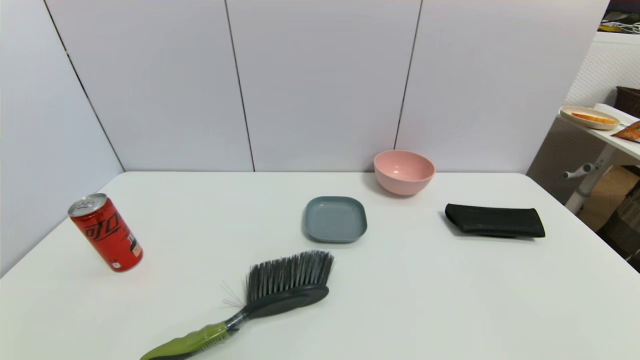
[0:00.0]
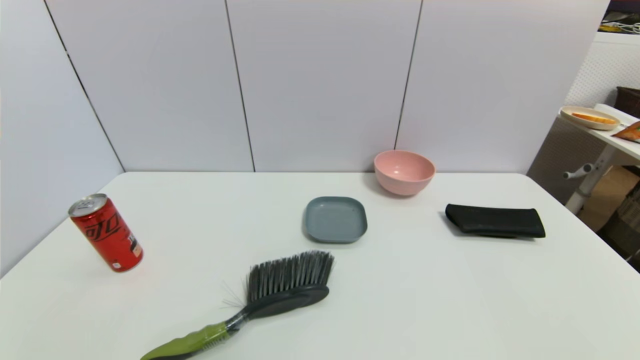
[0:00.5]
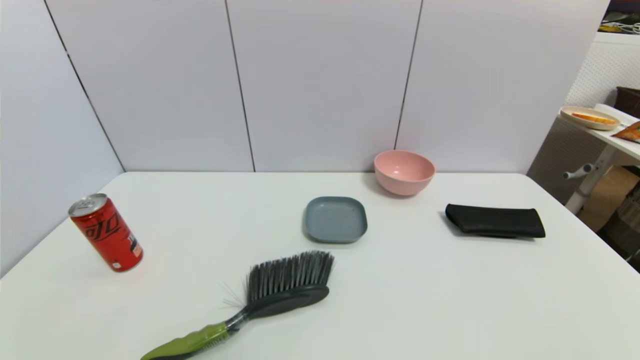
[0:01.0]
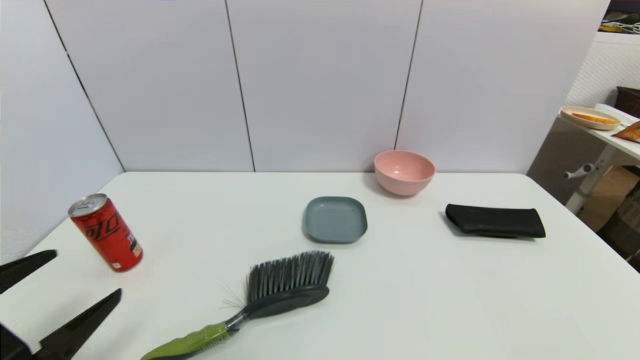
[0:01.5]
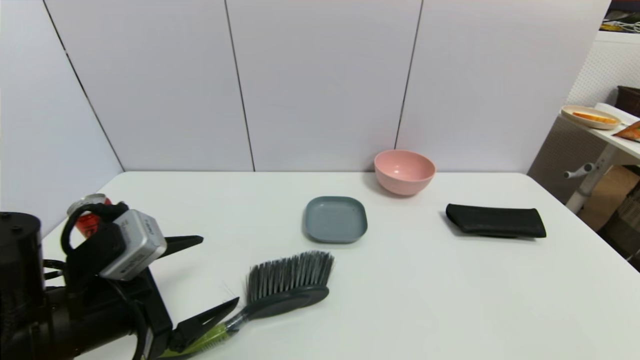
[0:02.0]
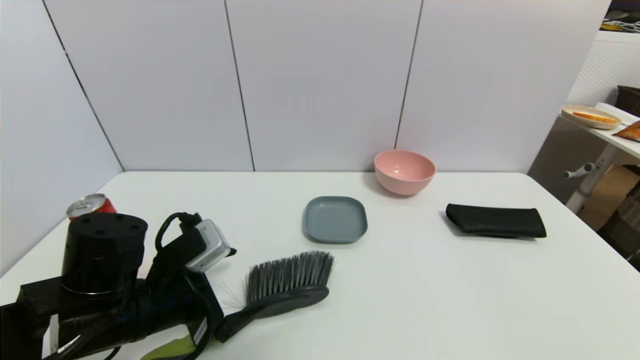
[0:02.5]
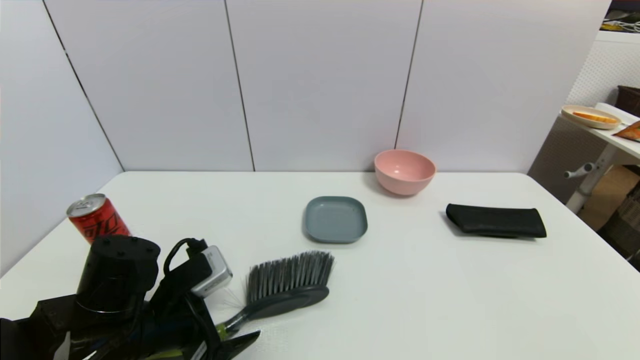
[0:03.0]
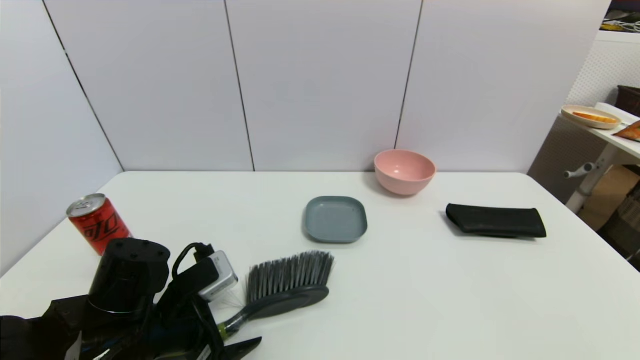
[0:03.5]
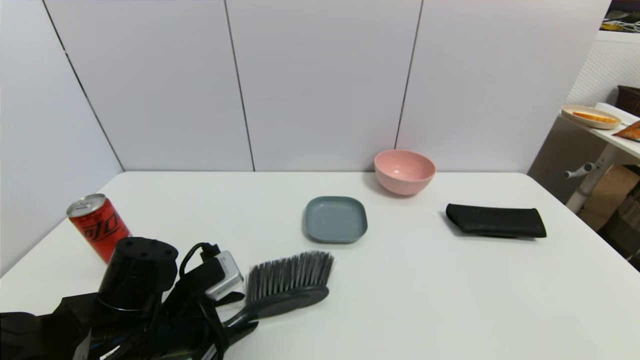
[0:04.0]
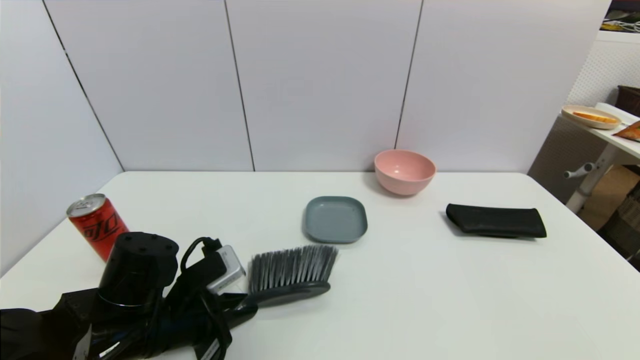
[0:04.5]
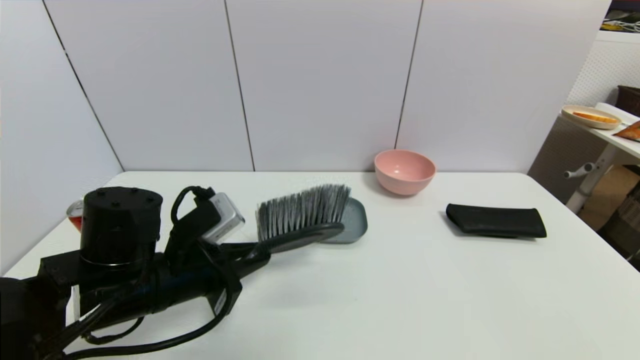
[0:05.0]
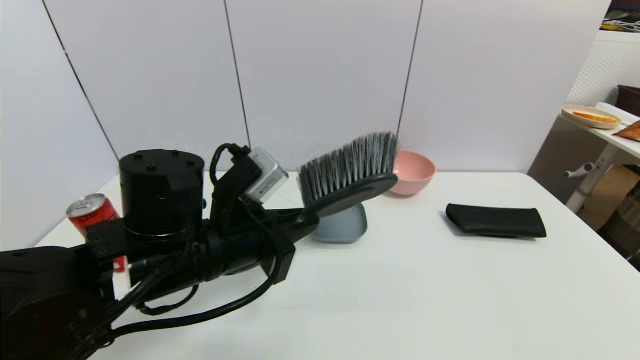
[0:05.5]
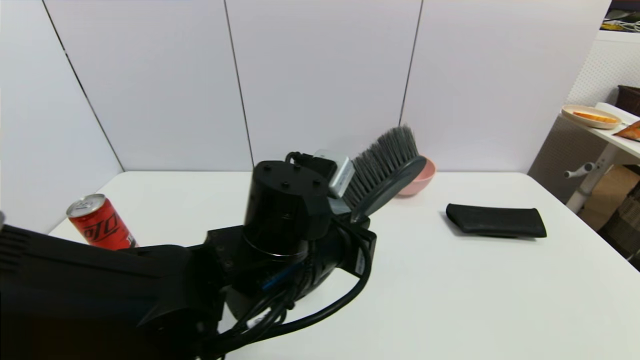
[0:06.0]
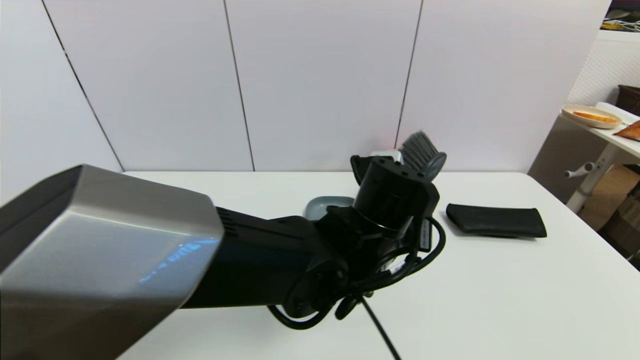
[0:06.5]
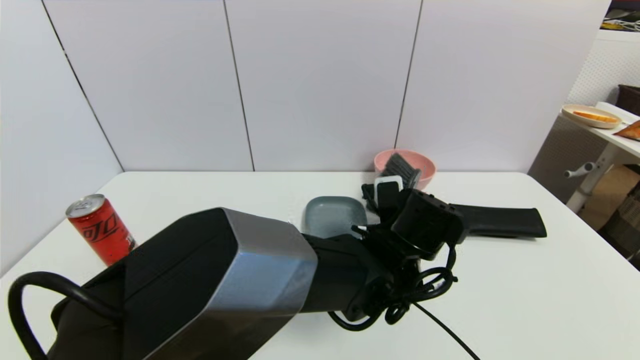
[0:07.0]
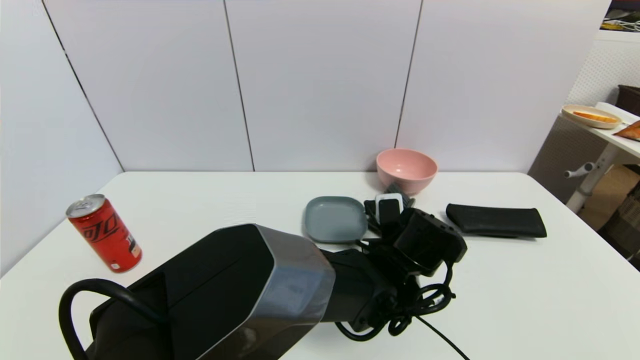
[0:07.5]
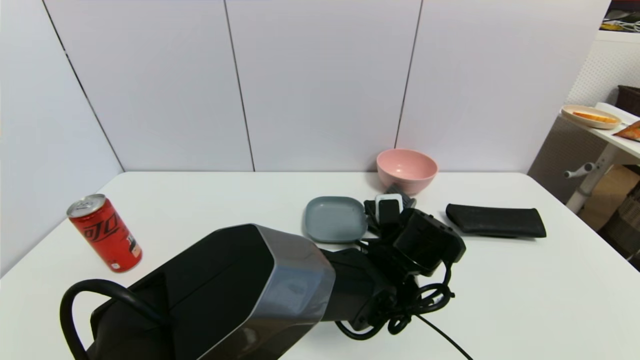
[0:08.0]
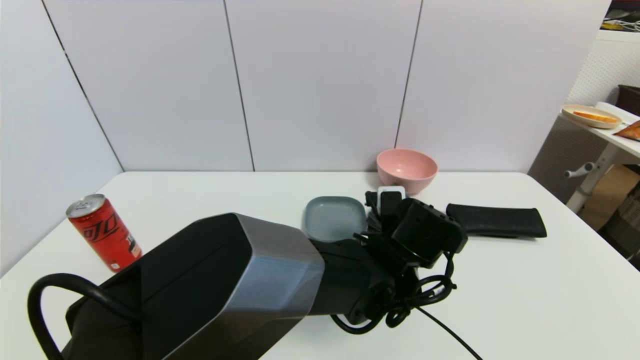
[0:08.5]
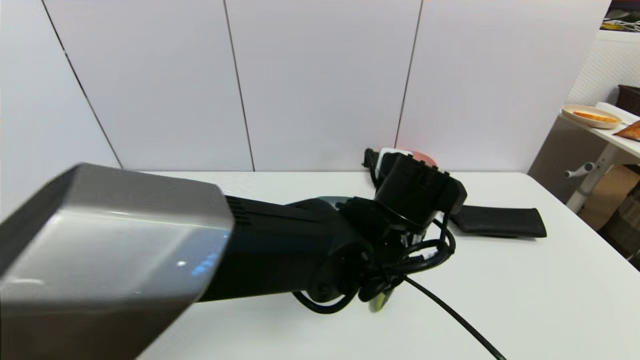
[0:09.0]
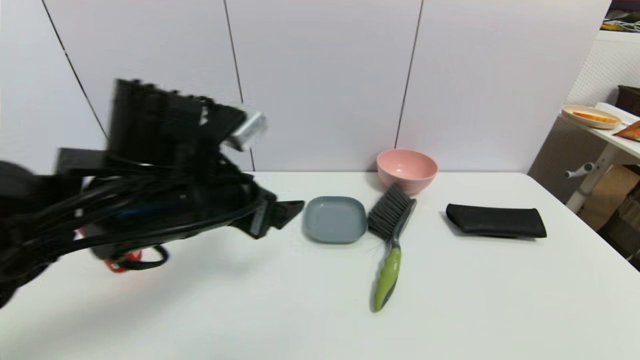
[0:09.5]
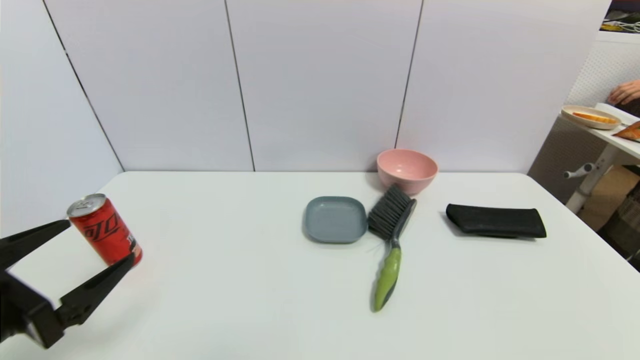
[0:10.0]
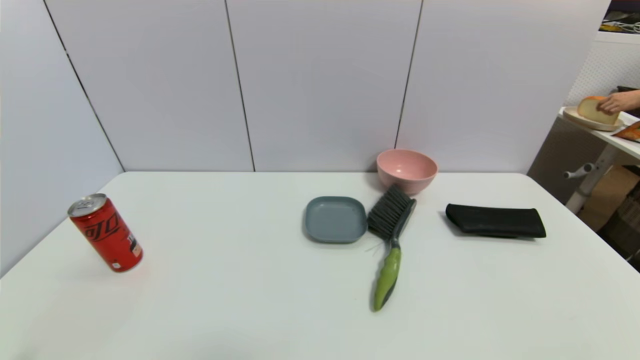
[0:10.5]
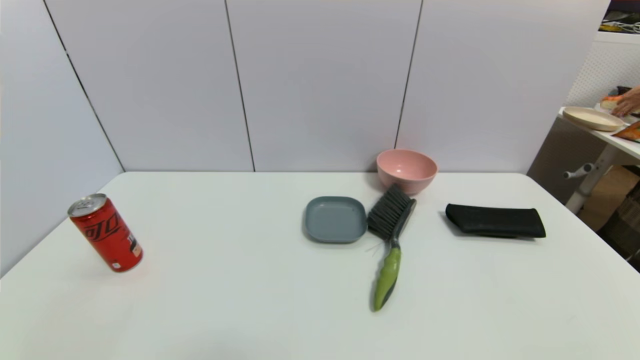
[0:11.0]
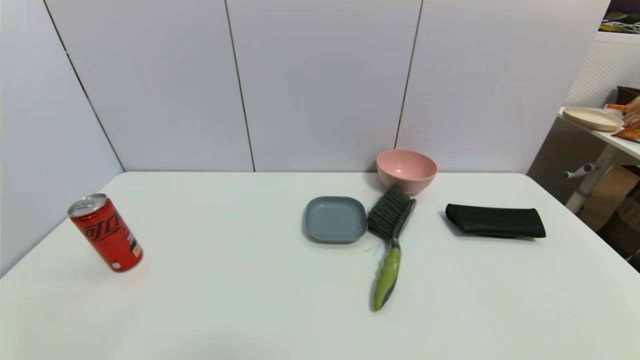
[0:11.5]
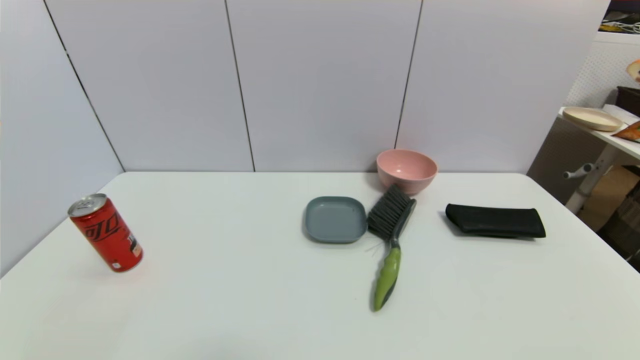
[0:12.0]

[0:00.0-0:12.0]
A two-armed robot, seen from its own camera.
Task of the whole recording: put the brush in the designated position.
Step, 0:01.5 to 0:04.0: Grasp the brush with left gripper.
Step, 0:04.5 to 0:08.0: Place the brush on the table with left gripper.
0:00.0 to 0:02.0: The left gripper is displaced forward, upward and to the right by roughly 20 cm.
0:02.0 to 0:04.0: The left gripper heads downward, covering some 10 cm, and closes.
0:04.0 to 0:06.0: The left gripper goes about 20 cm to the right and upward, and closes its fingers.
0:06.0 to 0:08.0: The left gripper moves to the right, downward and forward, roughly 20 cm.
0:08.0 to 0:10.0: The left gripper is displaced to the left and backward by roughly 40 cm, and opens.
0:10.0 to 0:12.0: The left gripper goes about 15 cm downward and backward.

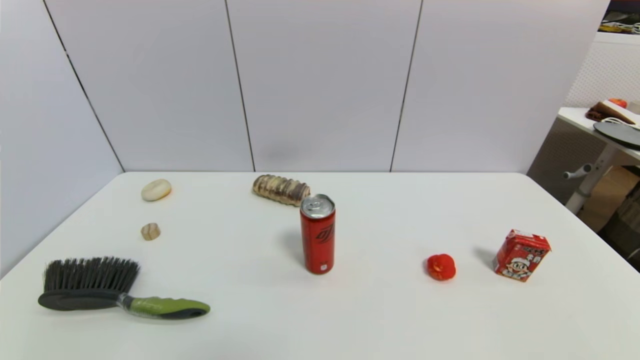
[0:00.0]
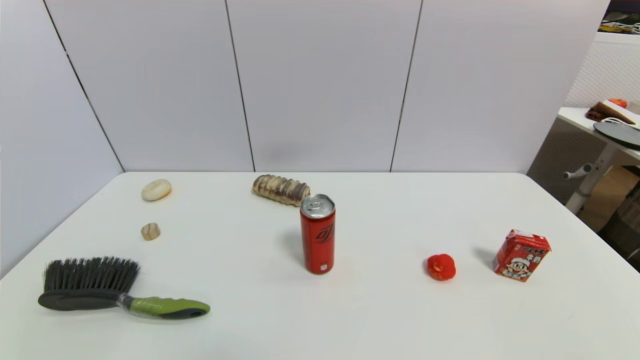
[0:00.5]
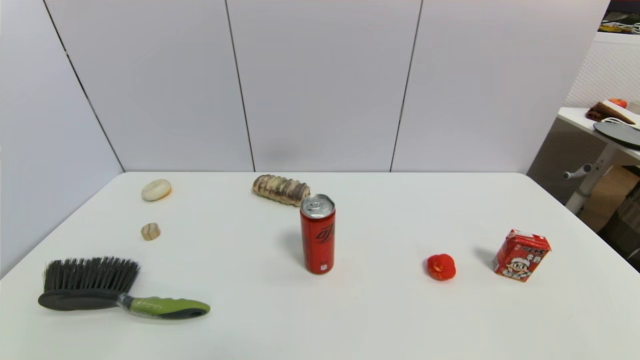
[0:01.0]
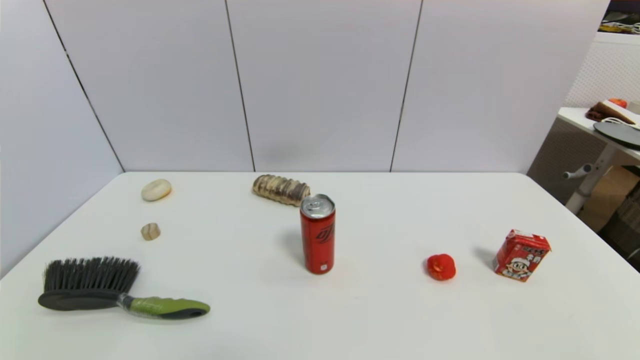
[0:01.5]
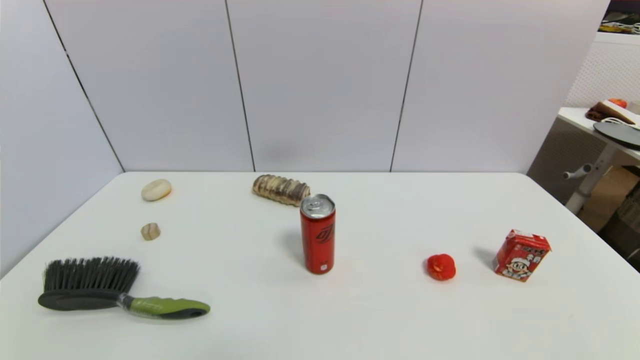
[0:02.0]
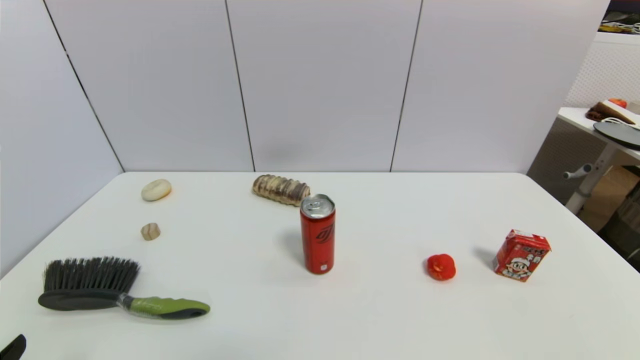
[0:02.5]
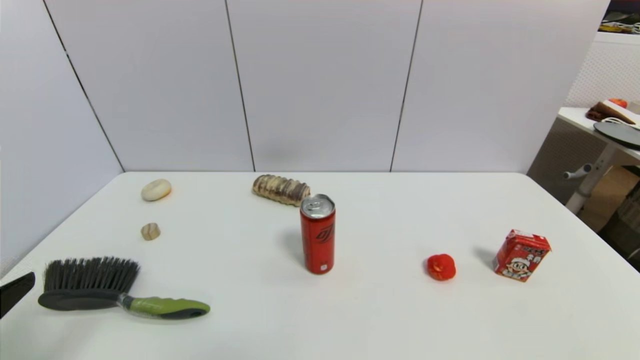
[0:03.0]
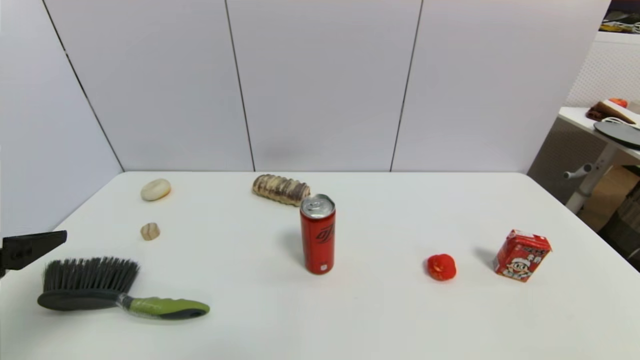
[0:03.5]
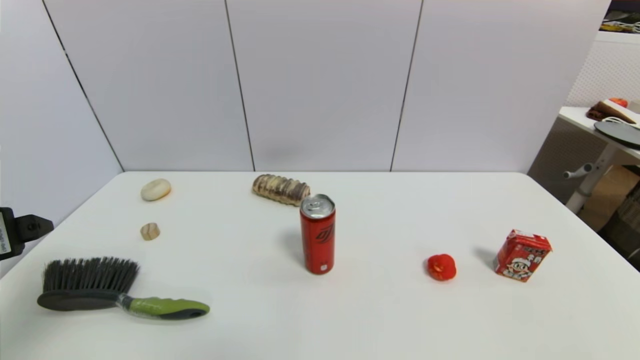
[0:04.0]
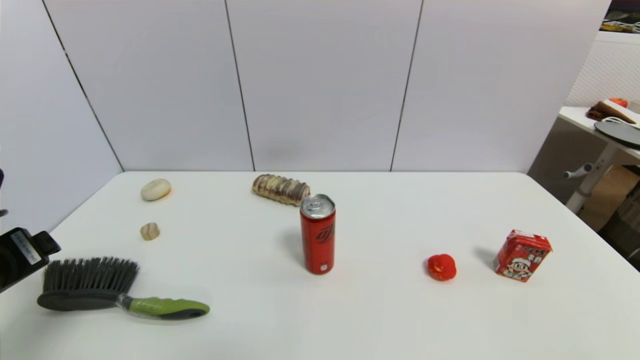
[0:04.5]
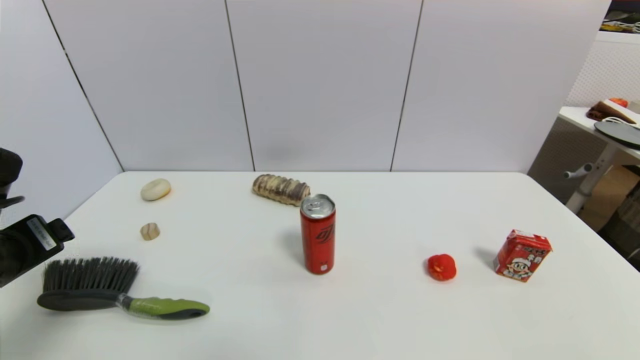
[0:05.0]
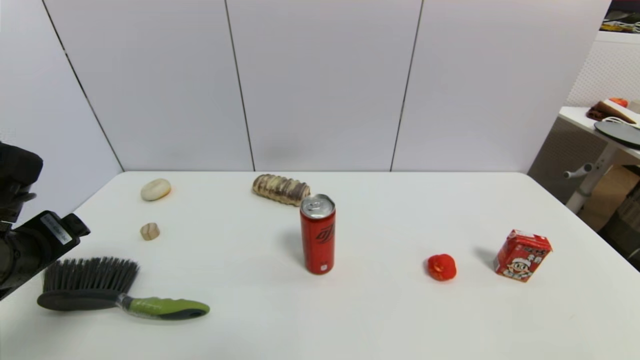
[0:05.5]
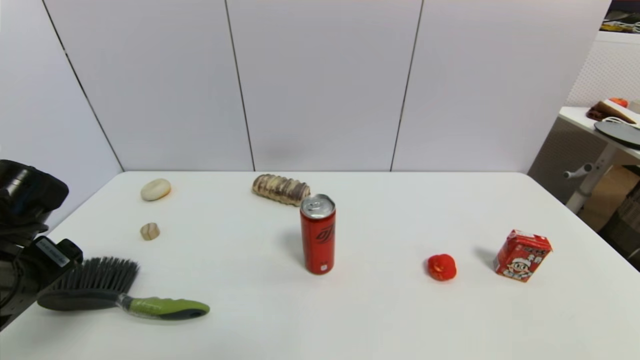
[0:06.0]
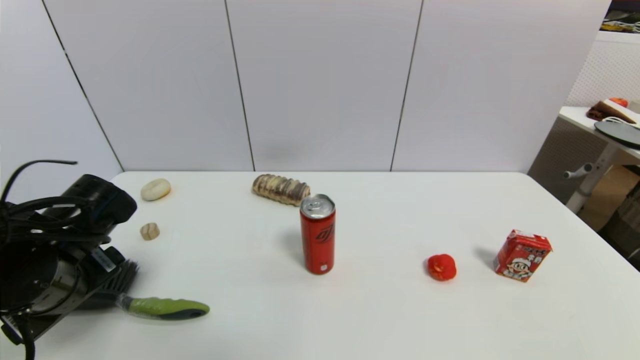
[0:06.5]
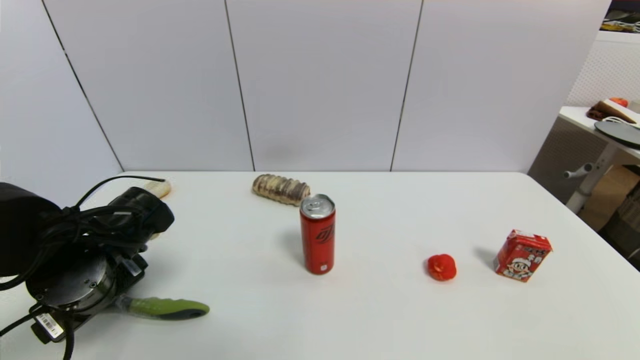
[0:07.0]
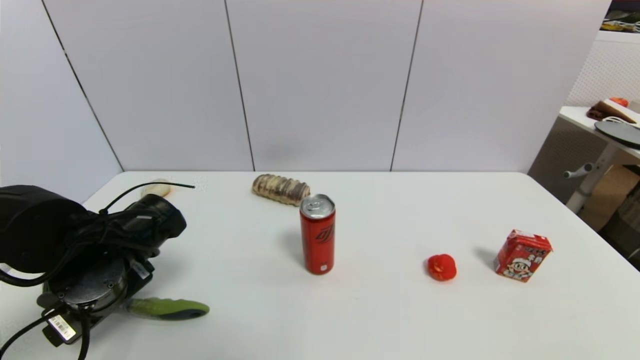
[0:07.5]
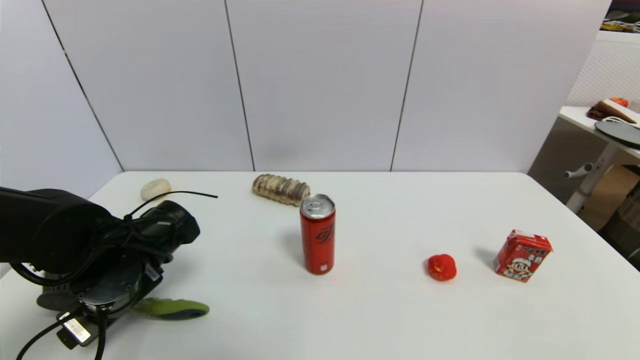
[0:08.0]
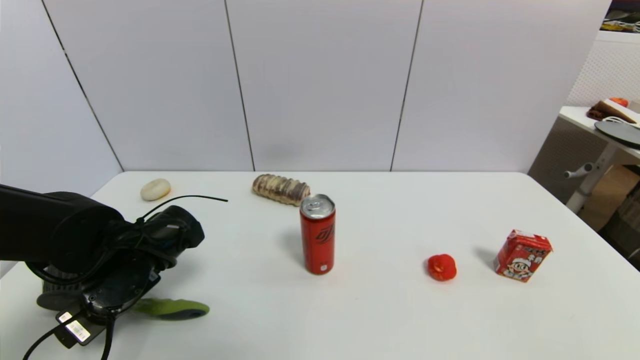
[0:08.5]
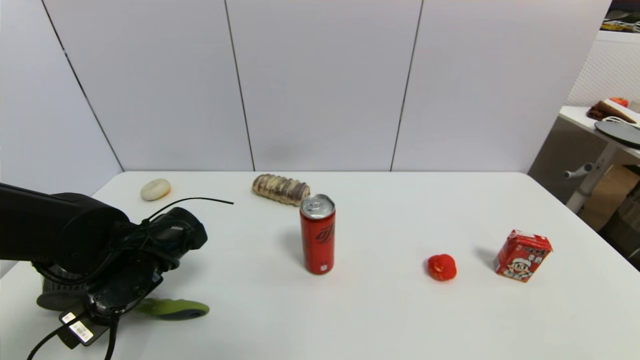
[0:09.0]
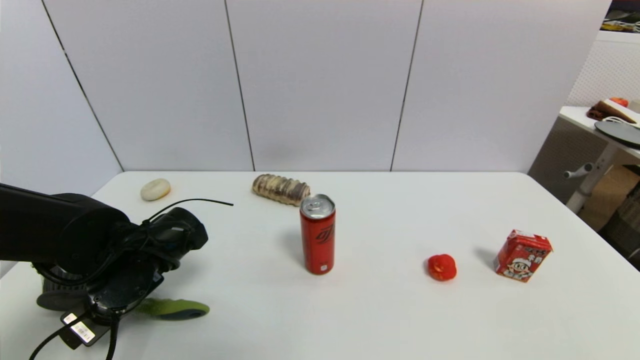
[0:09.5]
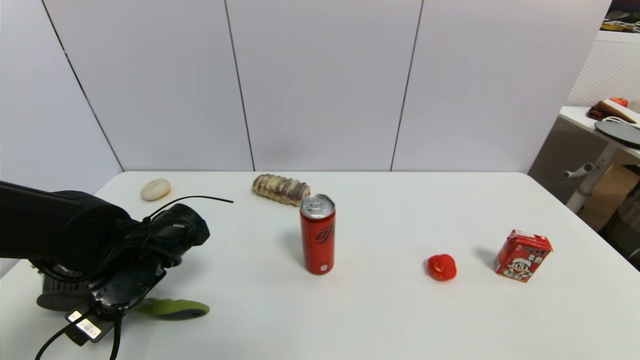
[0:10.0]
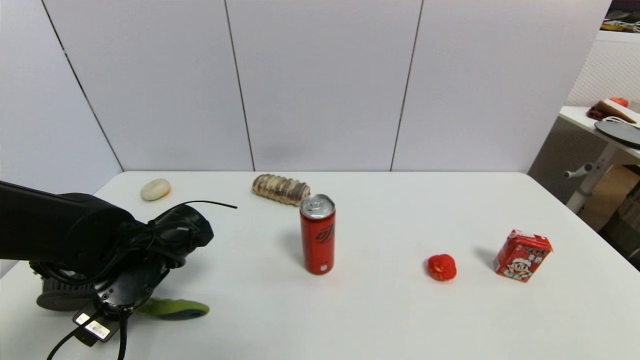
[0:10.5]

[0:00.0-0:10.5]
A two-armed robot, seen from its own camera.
Task of the whole recording: put the brush in the designated position.
0:00.0 to 0:02.0: The two grippers keep their place.
0:02.0 to 0:04.0: The left gripper moves upward and forward, approximately 25 cm.
0:04.0 to 0:06.5: The left gripper moves downward and to the right, roughly 10 cm.
0:06.5 to 0:08.5: The left gripper goes about 5 cm downward.
0:08.5 to 0:10.5: The grippers stay close to where they were, moving slightly.
